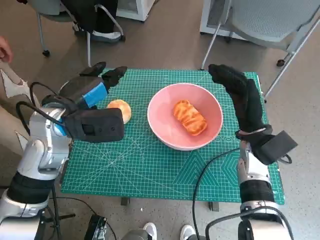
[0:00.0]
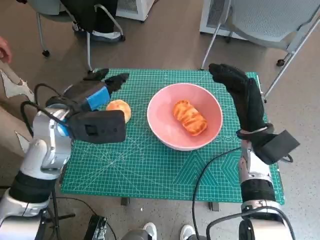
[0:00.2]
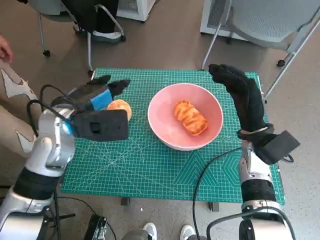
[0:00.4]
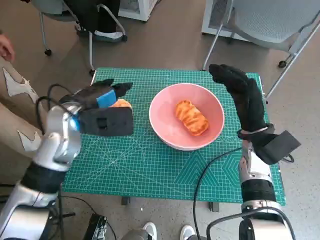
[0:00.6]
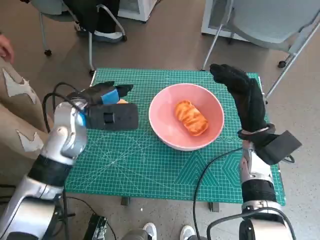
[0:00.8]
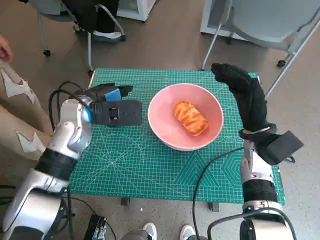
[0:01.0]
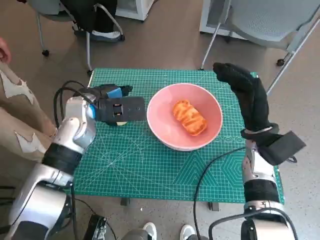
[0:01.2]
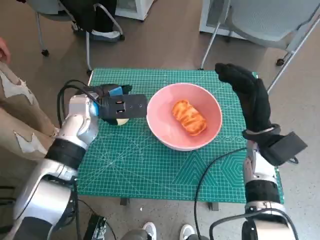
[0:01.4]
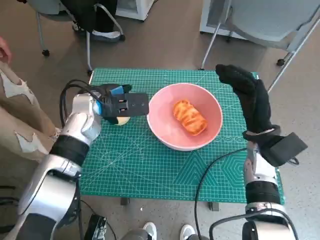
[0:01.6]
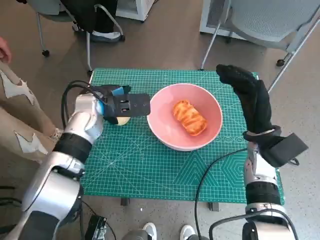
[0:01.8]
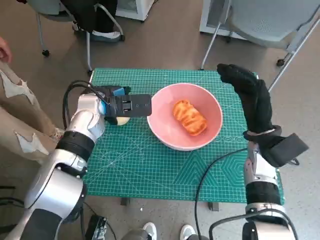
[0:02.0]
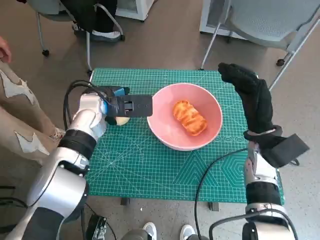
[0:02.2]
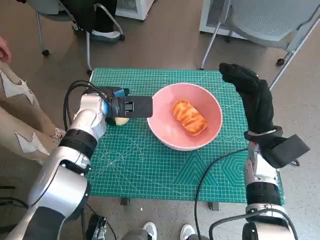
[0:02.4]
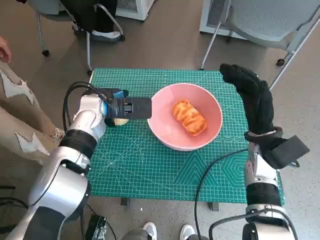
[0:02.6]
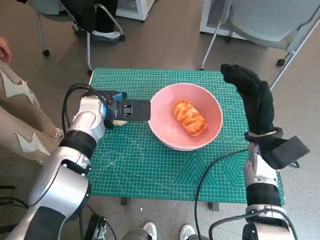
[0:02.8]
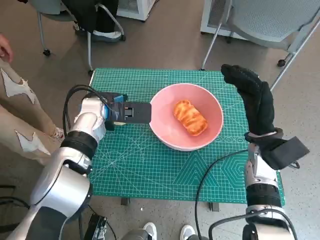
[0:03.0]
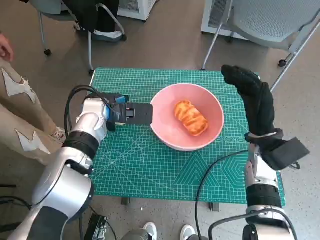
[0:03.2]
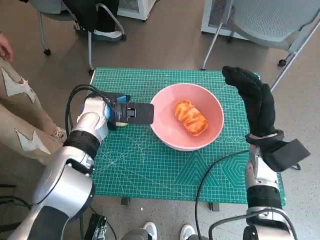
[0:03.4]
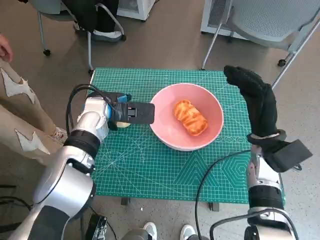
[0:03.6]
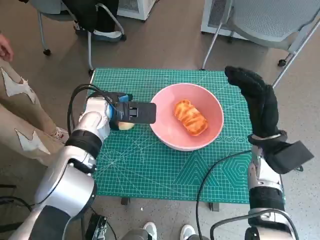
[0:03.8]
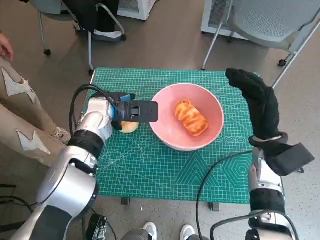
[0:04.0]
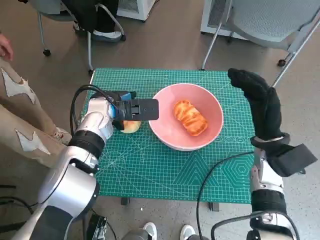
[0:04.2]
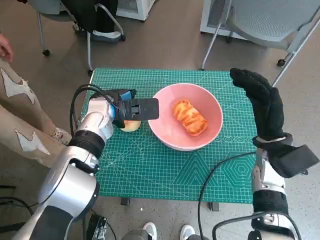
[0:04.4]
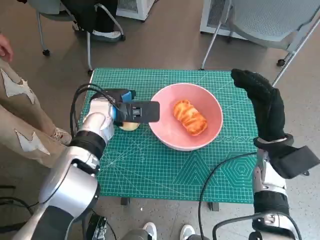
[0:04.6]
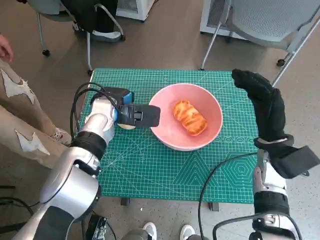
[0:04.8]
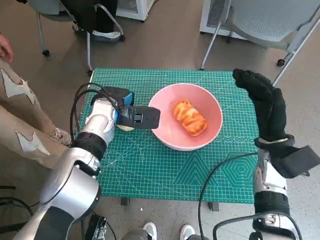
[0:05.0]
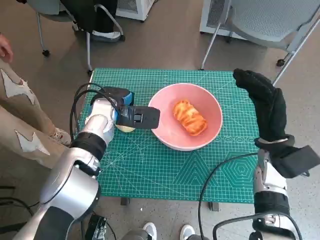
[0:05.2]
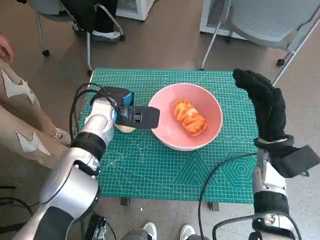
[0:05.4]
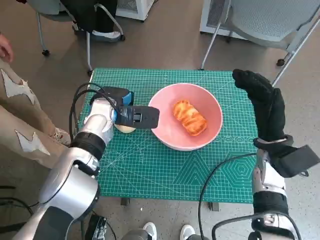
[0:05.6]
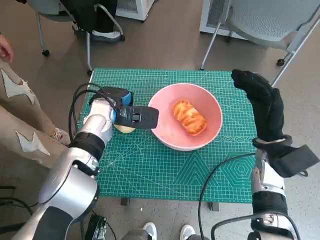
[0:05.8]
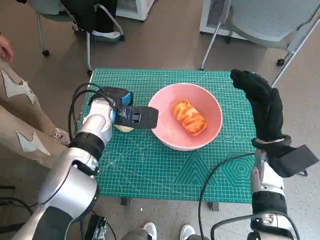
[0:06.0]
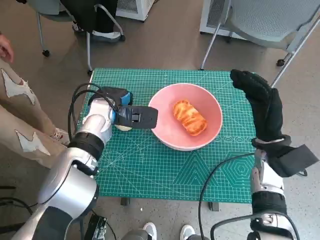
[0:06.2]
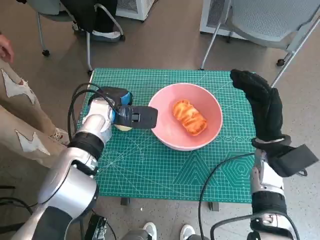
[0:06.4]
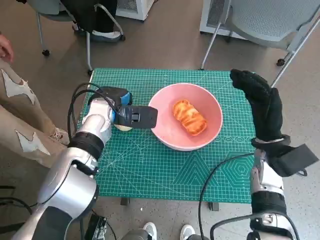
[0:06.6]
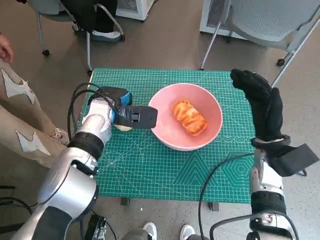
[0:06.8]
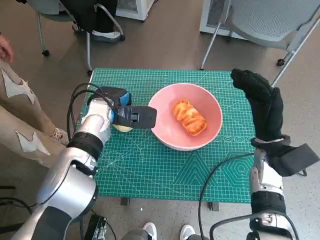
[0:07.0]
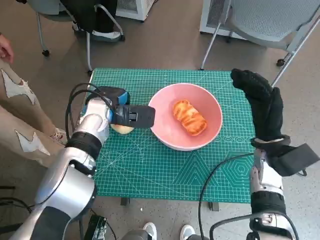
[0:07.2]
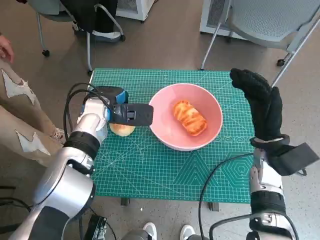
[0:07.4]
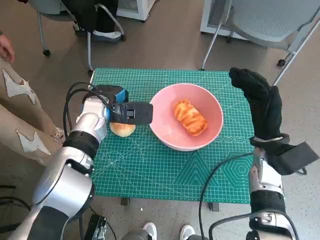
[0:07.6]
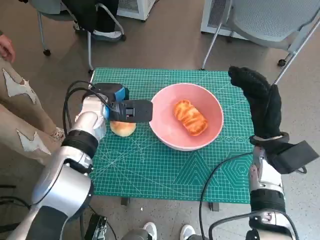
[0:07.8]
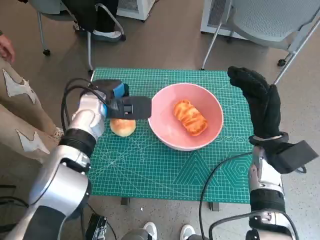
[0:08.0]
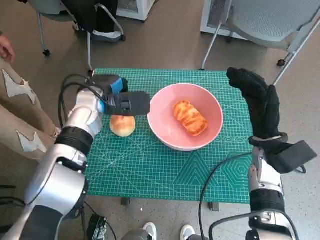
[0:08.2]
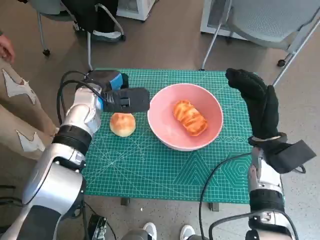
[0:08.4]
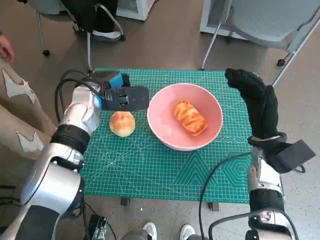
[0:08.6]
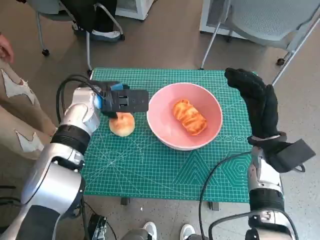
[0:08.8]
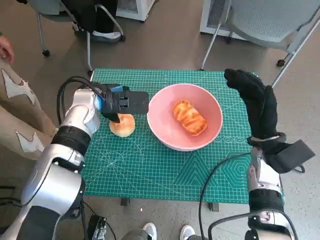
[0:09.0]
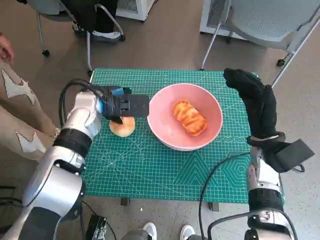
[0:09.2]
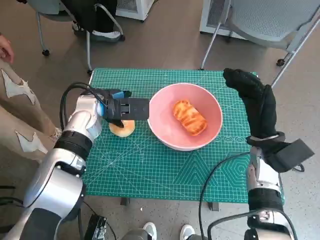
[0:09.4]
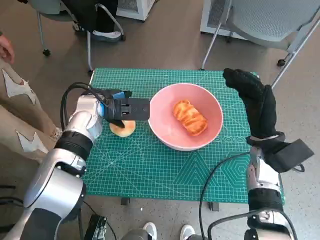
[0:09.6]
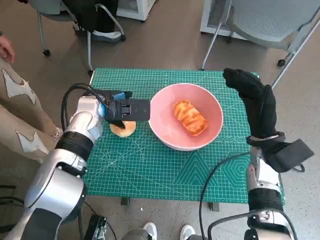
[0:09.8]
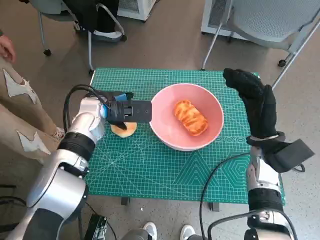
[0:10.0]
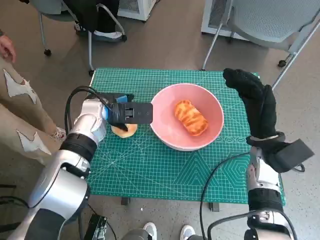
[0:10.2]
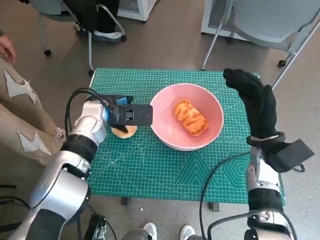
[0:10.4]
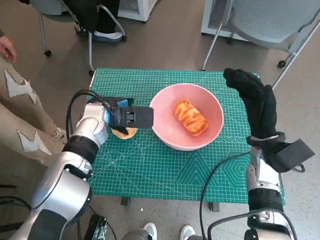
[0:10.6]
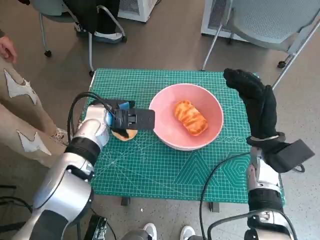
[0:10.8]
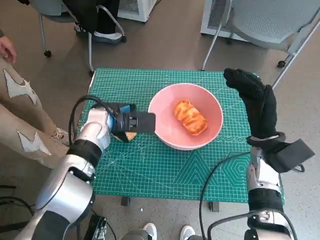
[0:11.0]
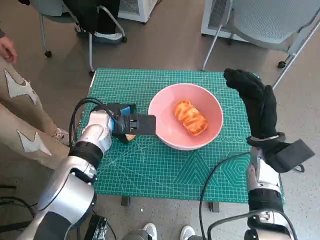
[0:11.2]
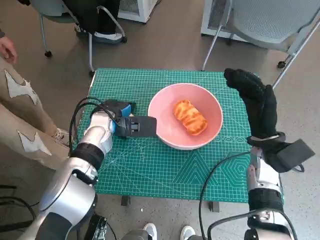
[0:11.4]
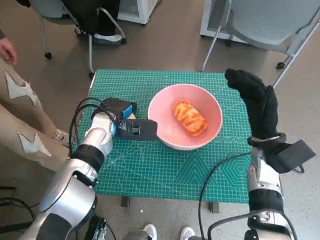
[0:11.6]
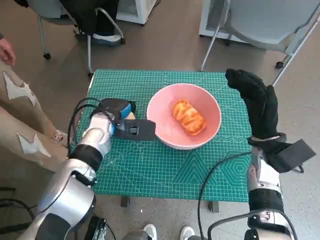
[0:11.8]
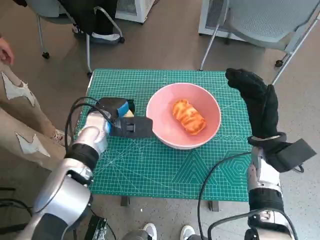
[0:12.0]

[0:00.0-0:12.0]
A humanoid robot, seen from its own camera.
Step, 0:00.0 to 0:11.4: Grasp the round bread with left hand.
0:00.0 to 0:01.6: The left hand moves forward, roughly 5 cm.
0:01.6 to 0:06.0: The hands stay close to where they were, moving slightly.
0:06.0 to 0:07.6: Both hands stay about where they are.
0:07.6 to 0:12.0: The hands make only small movements.

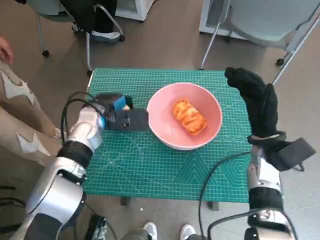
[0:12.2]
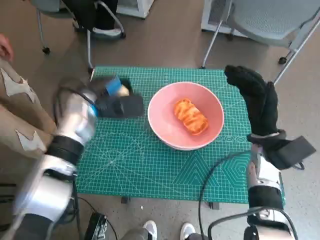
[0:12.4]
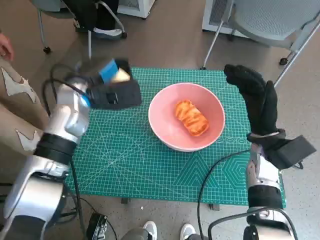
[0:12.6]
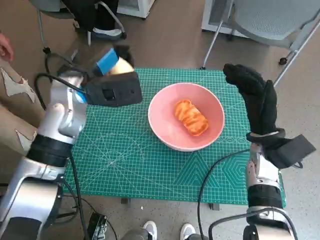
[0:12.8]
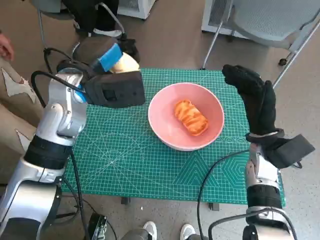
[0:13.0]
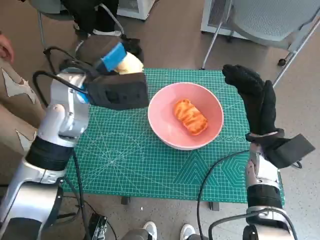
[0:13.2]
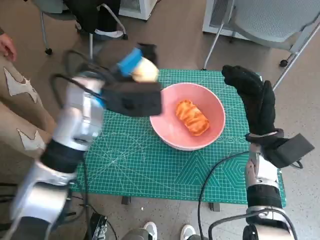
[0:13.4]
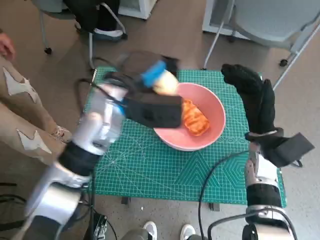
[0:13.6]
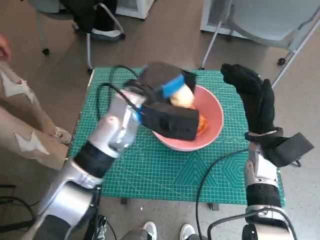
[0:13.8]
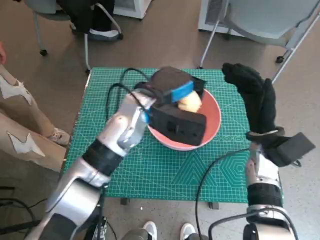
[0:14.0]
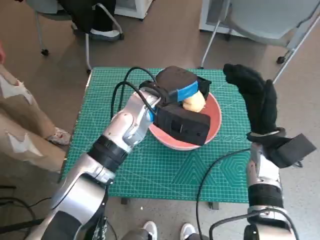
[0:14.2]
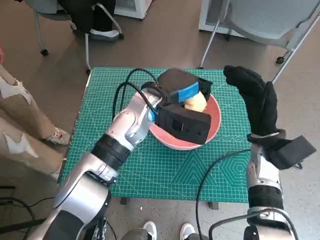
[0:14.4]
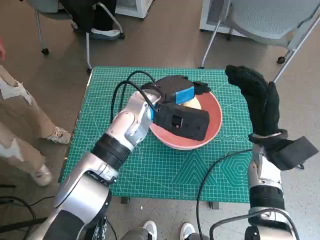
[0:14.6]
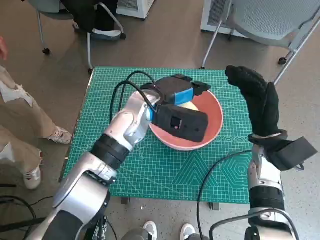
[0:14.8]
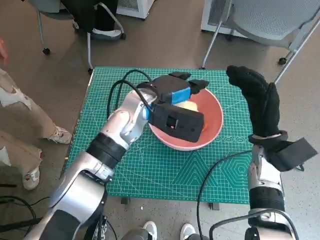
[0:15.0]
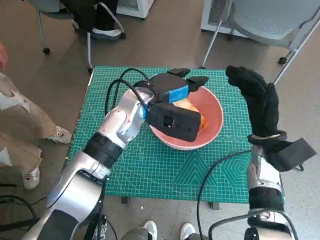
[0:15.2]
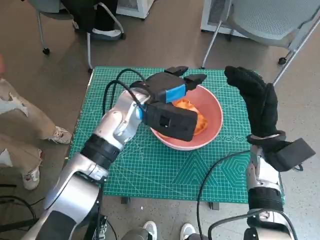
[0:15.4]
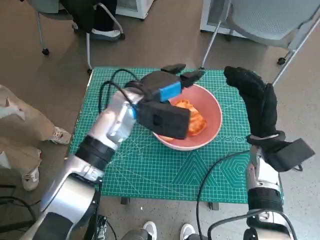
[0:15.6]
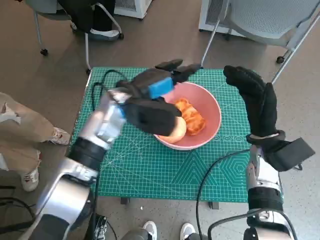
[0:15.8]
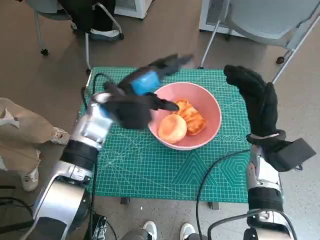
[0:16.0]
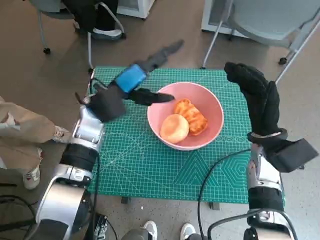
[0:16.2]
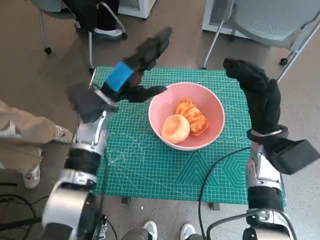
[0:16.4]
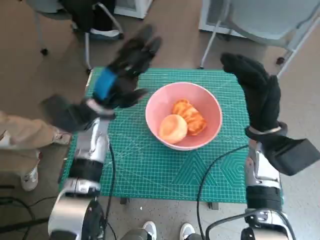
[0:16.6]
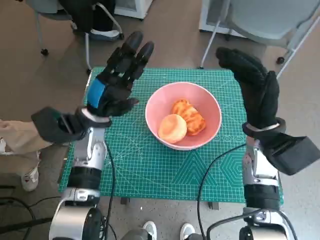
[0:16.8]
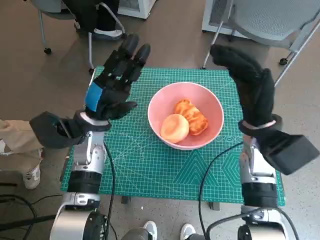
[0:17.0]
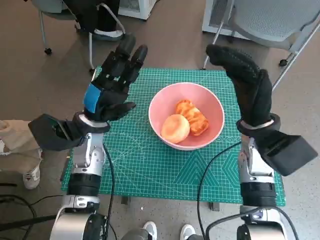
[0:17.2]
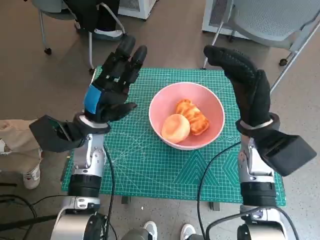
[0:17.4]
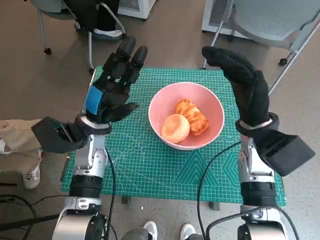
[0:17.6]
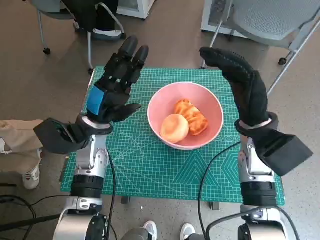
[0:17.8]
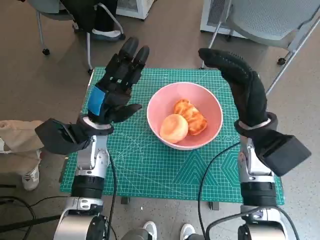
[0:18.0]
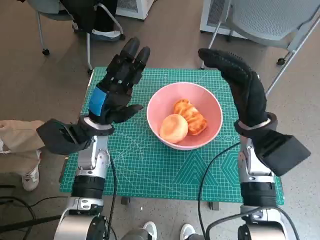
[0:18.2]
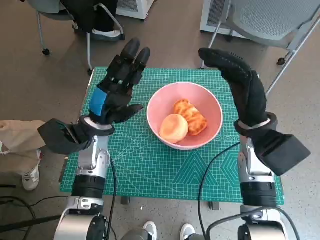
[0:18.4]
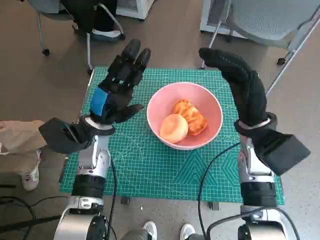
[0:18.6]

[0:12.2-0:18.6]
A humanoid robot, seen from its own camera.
Step, 0:12.2 to 0:15.2: Place the round bread in pink bowl with left hand.
0:12.2 to 0:13.8: The left hand shifts some 15 cm to the right and upward.
0:13.8 to 0:15.4: The hands make only small movements.
0:15.4 to 0:17.0: The right hand moves approximately 5 cm. Meanwhile the left hand moves to the left and downward, approximately 10 cm.
0:17.0 to 0:18.6: Both hands stay about where they are.

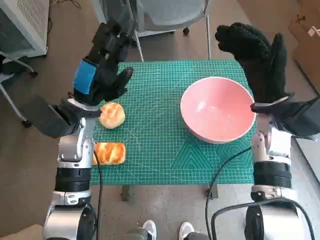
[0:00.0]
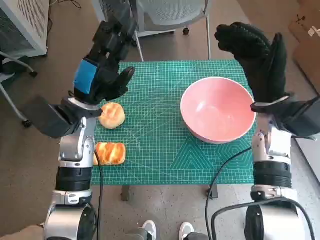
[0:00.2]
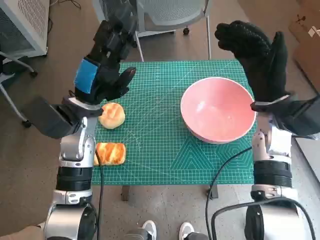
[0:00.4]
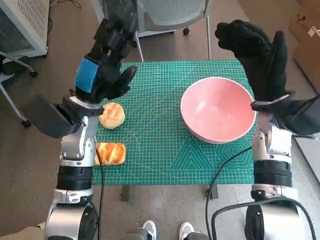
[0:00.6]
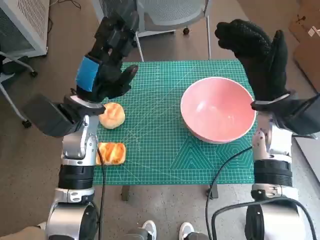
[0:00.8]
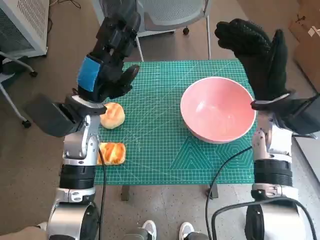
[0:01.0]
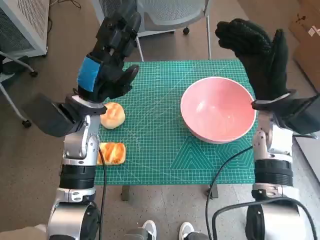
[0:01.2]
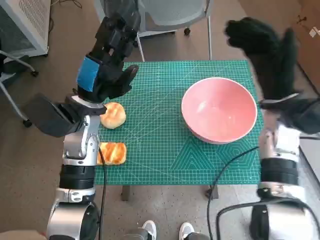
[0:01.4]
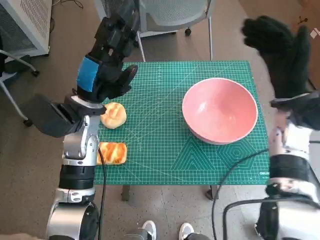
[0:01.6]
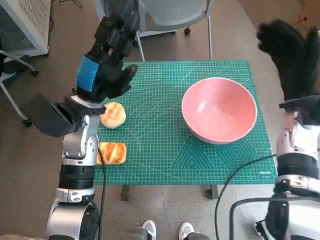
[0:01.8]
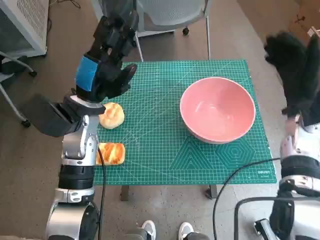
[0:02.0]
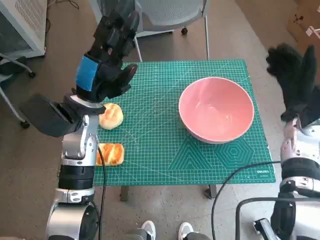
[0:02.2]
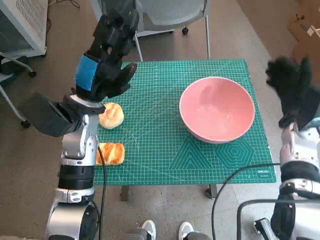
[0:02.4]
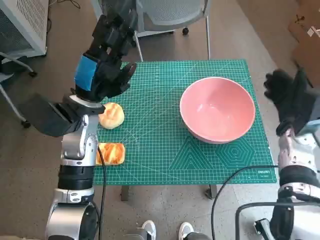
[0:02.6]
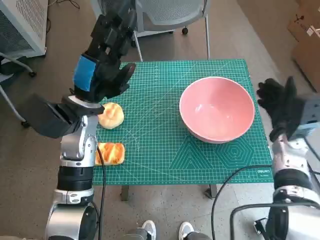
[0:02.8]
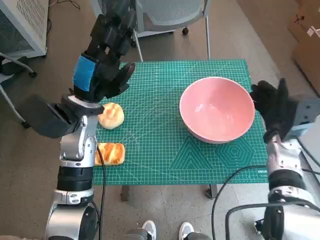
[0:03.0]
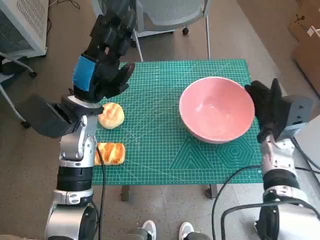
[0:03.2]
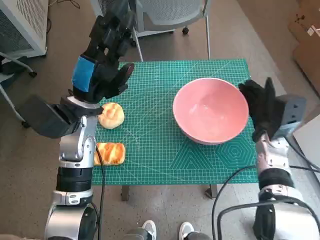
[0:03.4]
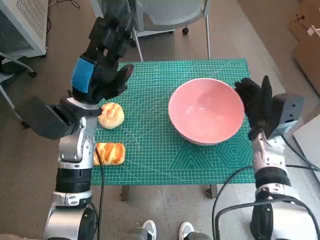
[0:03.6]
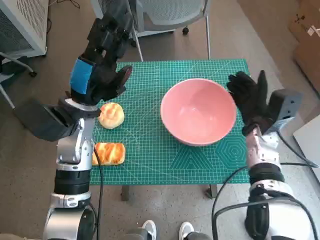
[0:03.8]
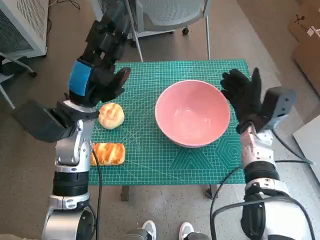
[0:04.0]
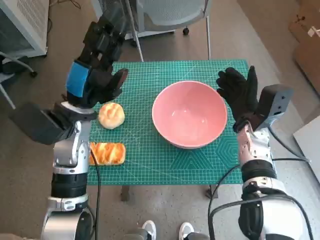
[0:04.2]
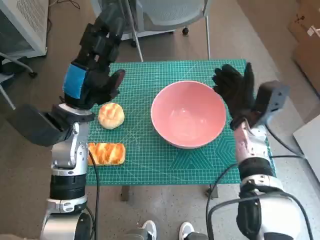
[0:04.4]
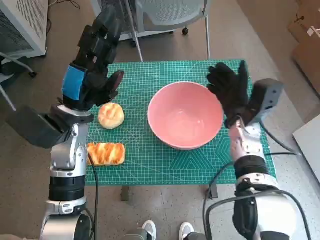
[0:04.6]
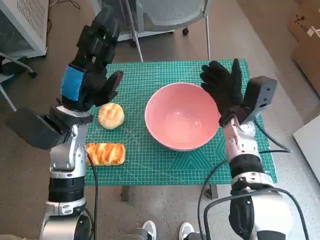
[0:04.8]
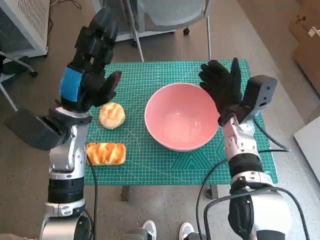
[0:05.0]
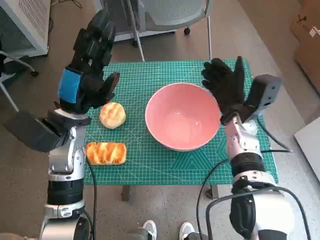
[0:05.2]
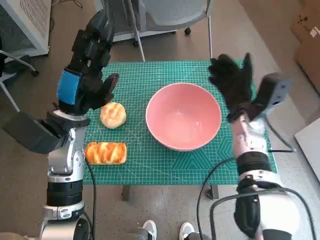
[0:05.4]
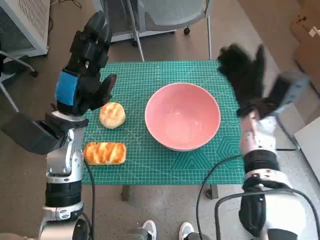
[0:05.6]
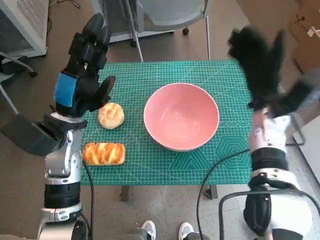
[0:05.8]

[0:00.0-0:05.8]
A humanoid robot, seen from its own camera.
Step, 0:00.0 to 0:05.2: Move the pink bowl to the center of table with right hand.
0:01.4 to 0:02.8: The right hand is displaced downward and to the right by roughly 10 cm.
0:02.8 to 0:04.4: The right hand shifts some 10 cm to the left.
0:04.4 to 0:05.8: The right hand moves upward, about 5 cm.
